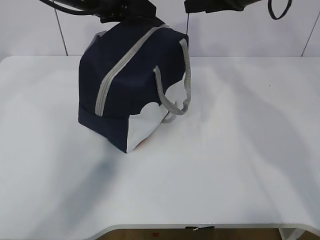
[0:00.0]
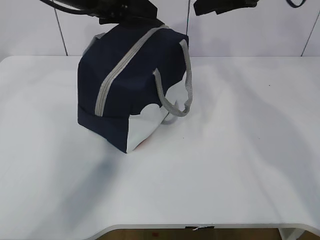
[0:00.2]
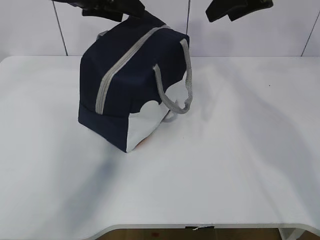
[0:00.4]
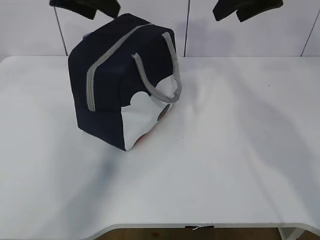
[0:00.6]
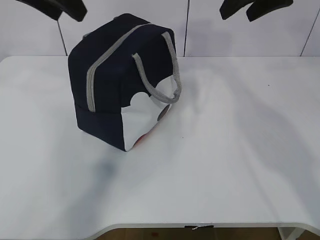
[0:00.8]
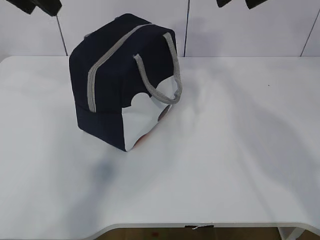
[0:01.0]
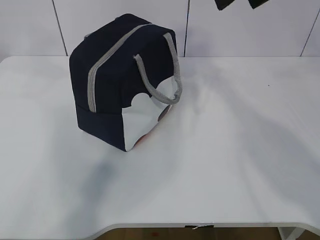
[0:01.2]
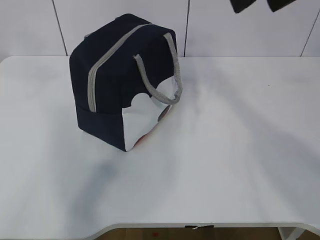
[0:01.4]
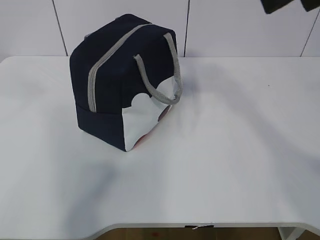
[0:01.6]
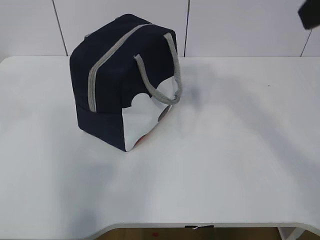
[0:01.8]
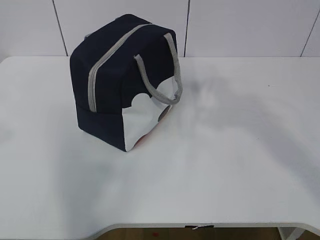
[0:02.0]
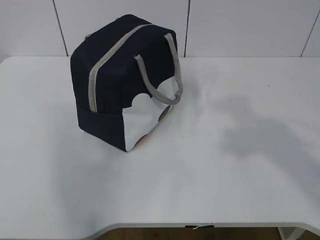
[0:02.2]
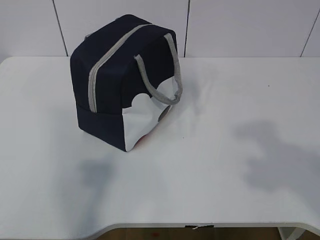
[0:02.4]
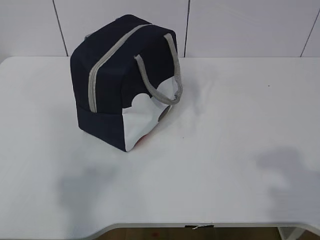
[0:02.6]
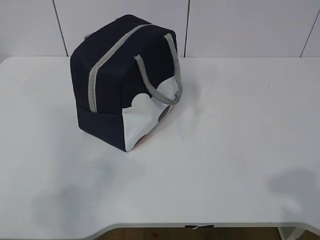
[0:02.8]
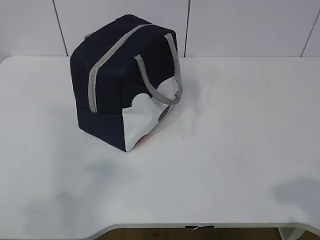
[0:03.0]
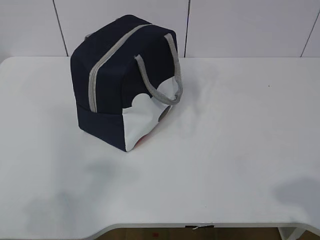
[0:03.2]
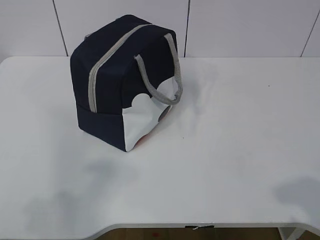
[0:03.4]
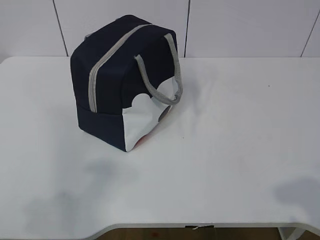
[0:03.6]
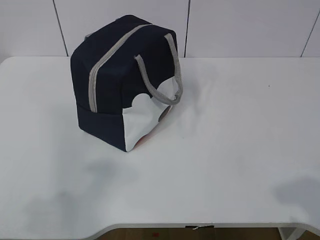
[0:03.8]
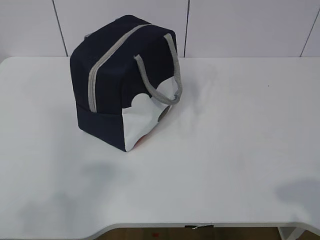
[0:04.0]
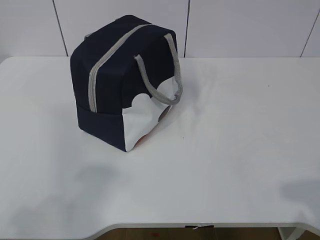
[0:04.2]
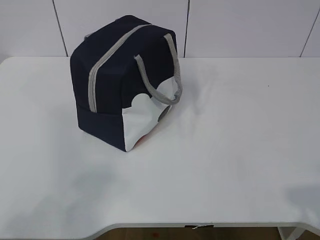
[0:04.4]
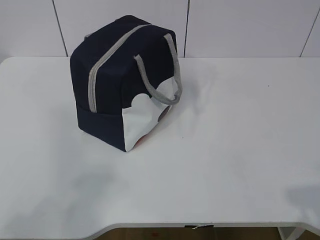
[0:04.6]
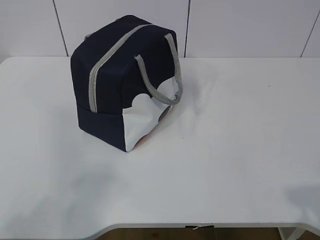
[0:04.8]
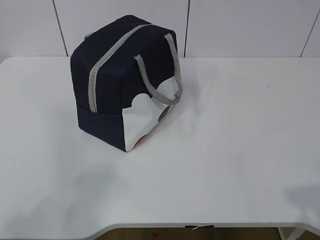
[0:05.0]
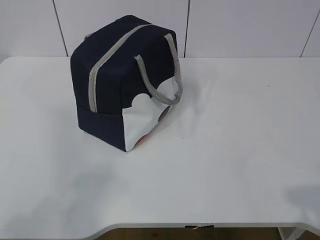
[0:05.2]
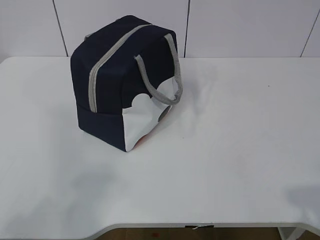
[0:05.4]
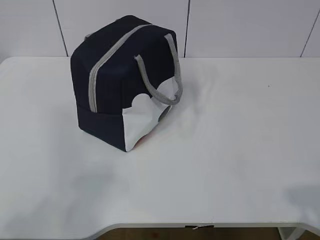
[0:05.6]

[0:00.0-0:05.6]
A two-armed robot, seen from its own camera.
0:00.0 to 0:01.4: The left gripper is displaced backward, upward and to the left by about 25 cm. The right gripper heads backward and upward, covering roughly 20 cm.
0:01.4 to 0:02.8: The grippers both shift backward and downward by some 30 cm.
